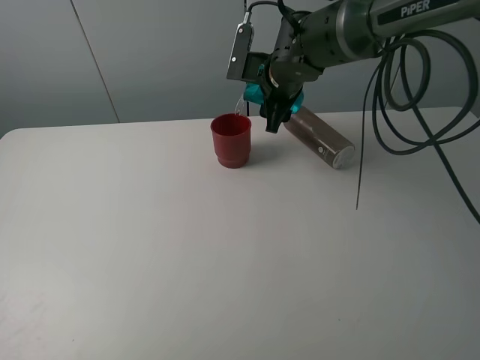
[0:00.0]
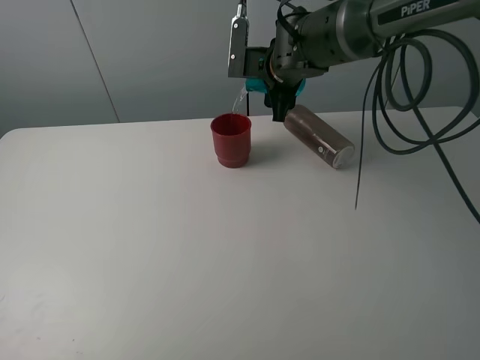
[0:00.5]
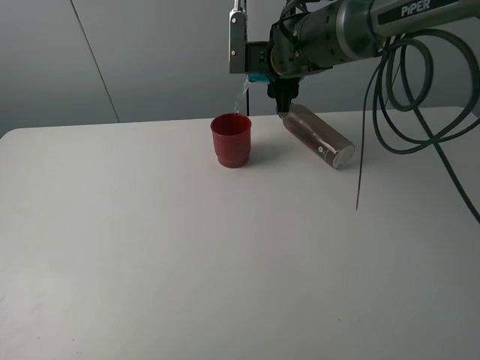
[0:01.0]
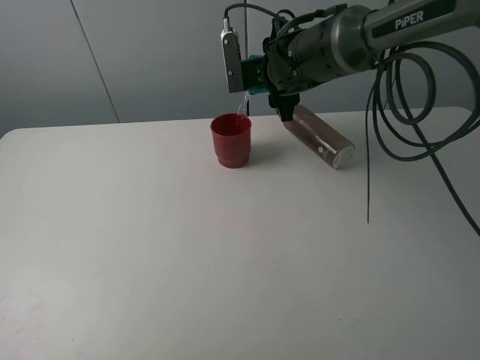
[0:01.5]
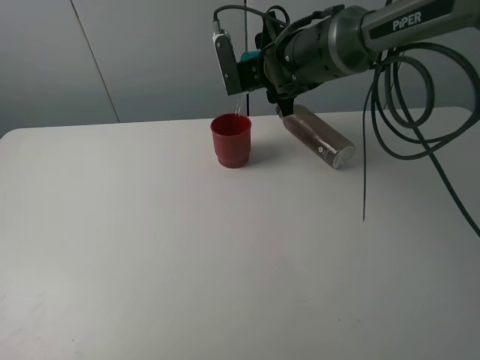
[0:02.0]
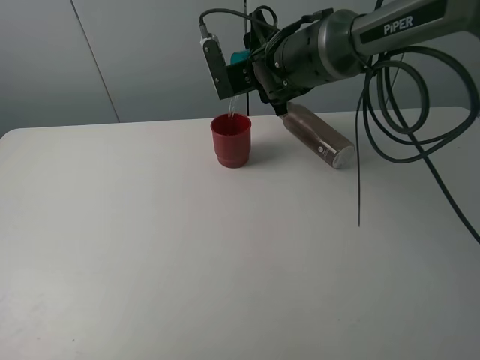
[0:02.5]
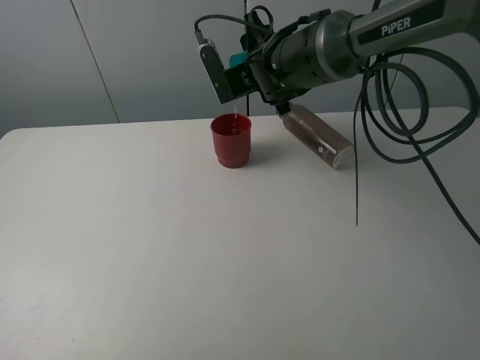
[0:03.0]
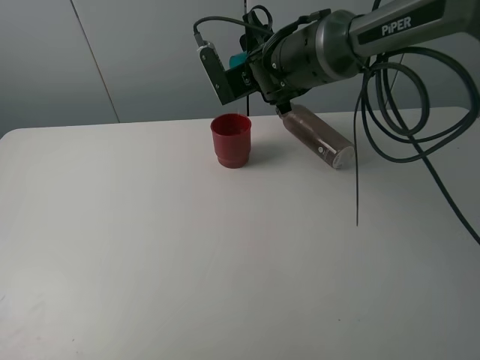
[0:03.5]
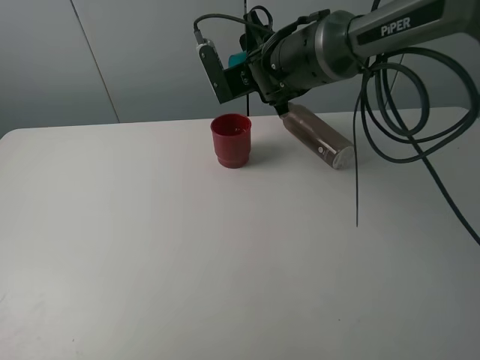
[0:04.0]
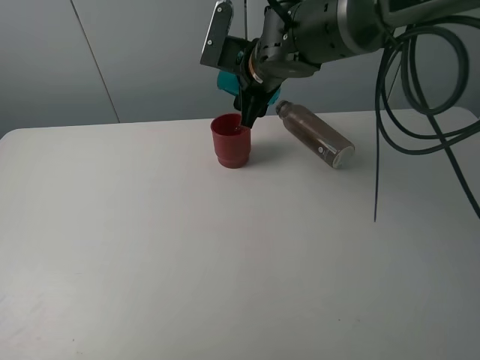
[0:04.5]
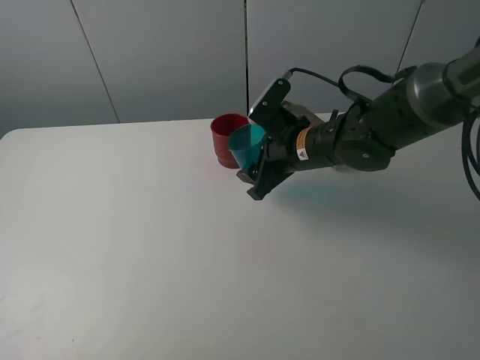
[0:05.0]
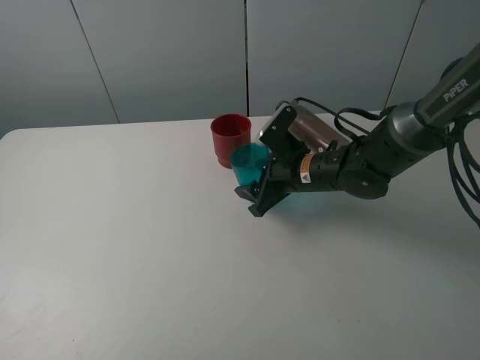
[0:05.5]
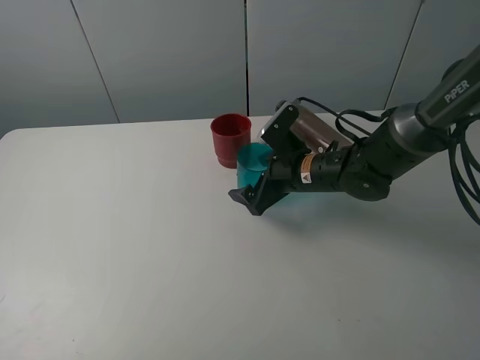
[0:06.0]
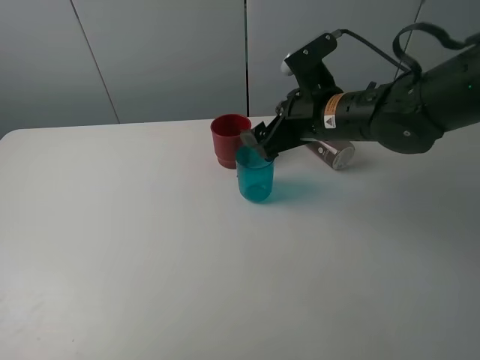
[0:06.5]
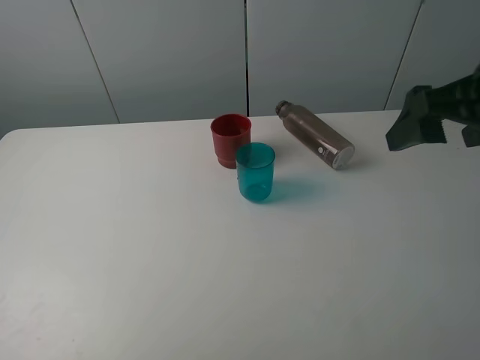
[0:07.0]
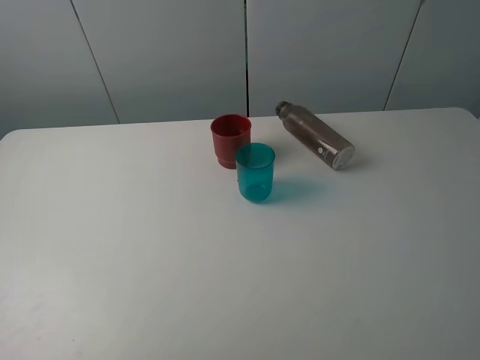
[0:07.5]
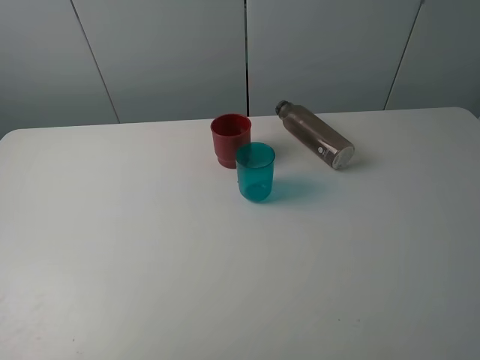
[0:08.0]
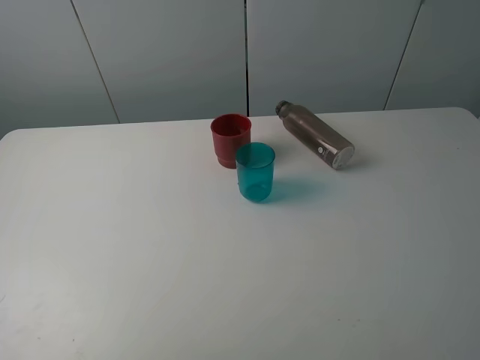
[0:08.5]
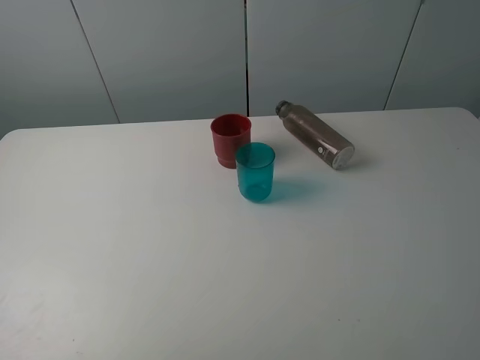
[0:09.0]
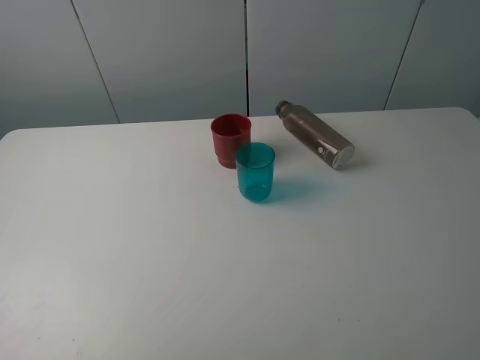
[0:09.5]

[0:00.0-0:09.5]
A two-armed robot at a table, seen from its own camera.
Task of the whole recording: pick up the bottle and pour water into the cup, then pick up the cup containing water and pour it into another cup.
Step, 0:00.0 to 0:04.0: Pour water from blue cup to red cup with the right gripper.
Step, 0:04.5 to 0:06.0: Place the blue cup with the right gripper.
0:02.0 to 0:04.0: The grippers make only small movements.
0:04.0 to 0:05.5: The right gripper shifts about 15 cm downward, backward and to the right.
0:05.5 to 0:07.5: The right gripper heads backward, upward and to the right, covering some 40 cm, and opens.
